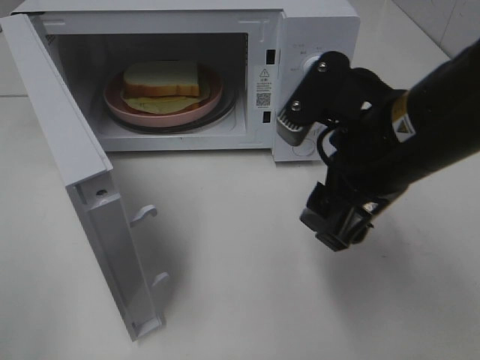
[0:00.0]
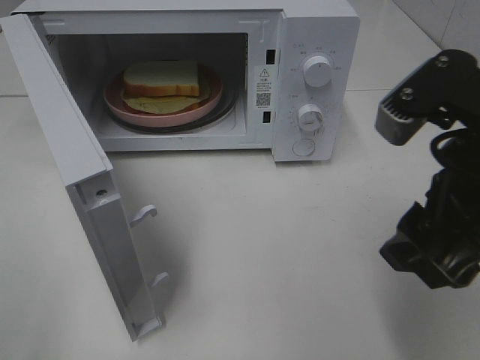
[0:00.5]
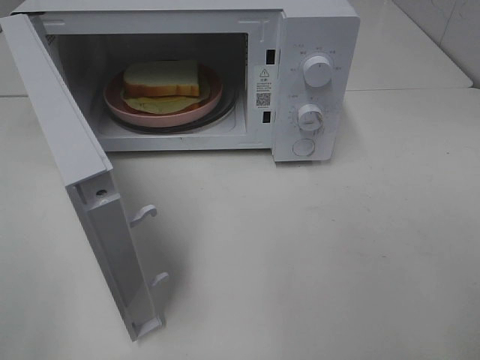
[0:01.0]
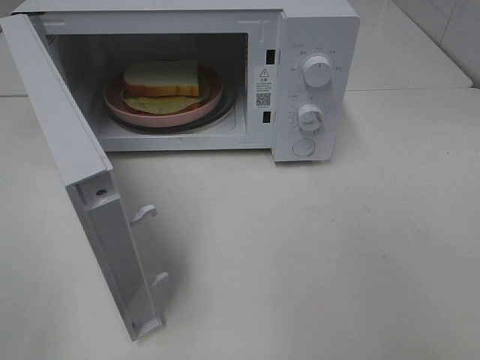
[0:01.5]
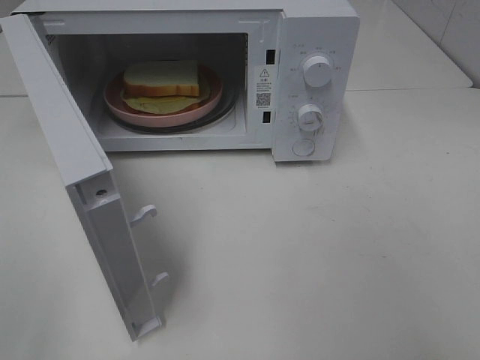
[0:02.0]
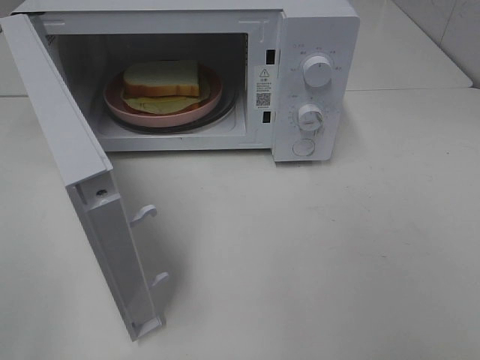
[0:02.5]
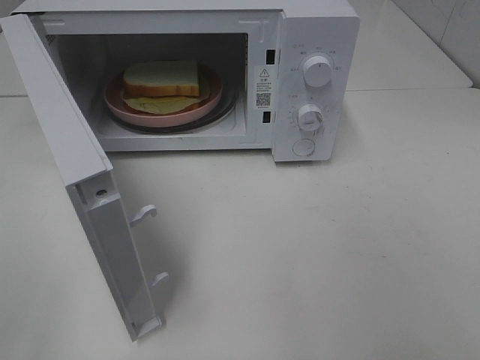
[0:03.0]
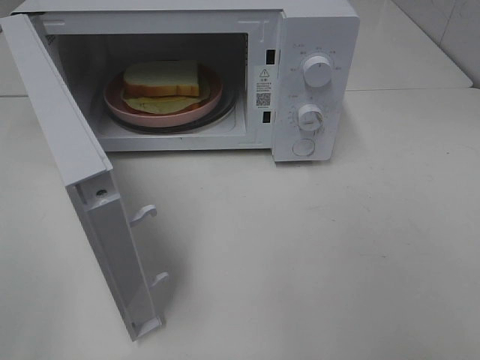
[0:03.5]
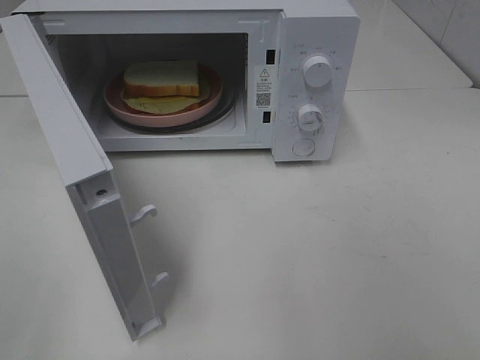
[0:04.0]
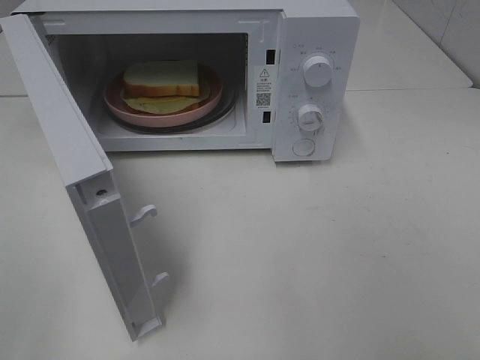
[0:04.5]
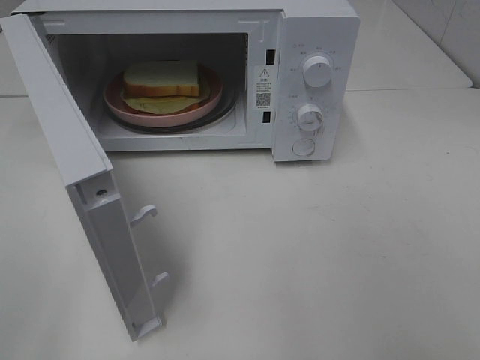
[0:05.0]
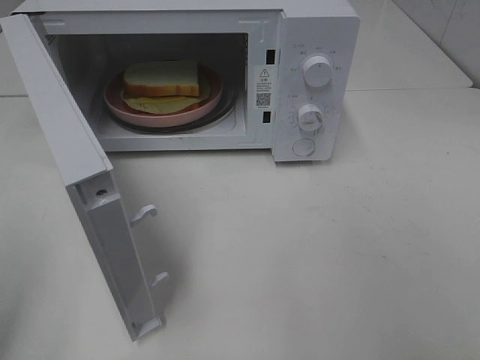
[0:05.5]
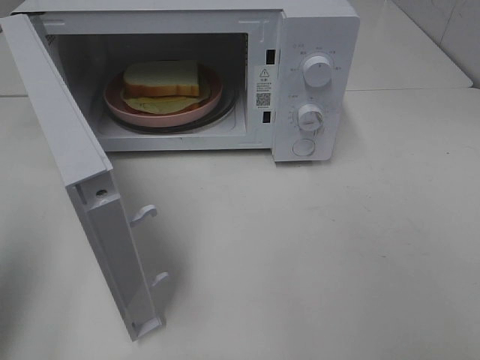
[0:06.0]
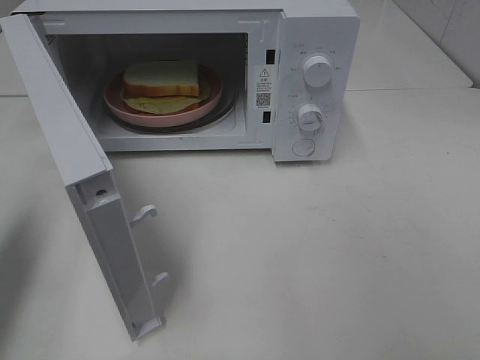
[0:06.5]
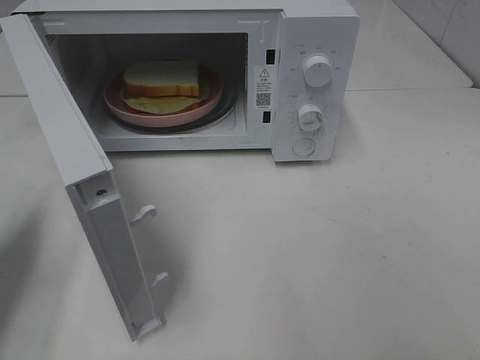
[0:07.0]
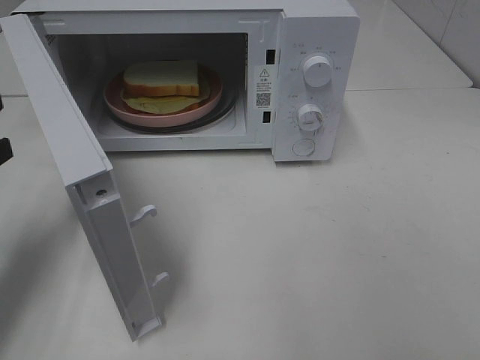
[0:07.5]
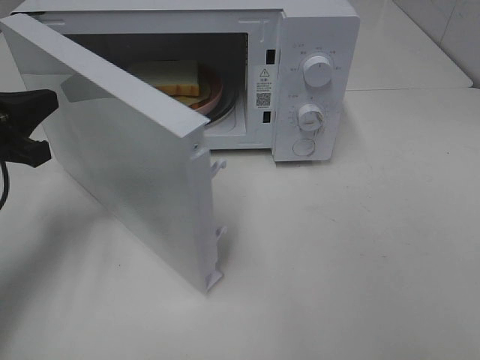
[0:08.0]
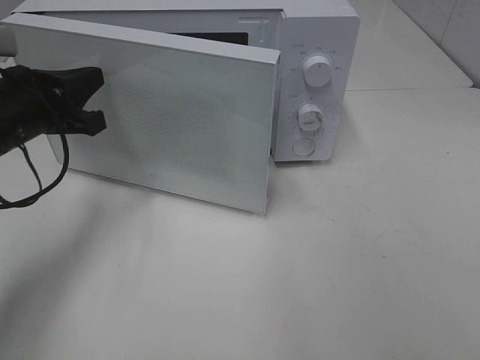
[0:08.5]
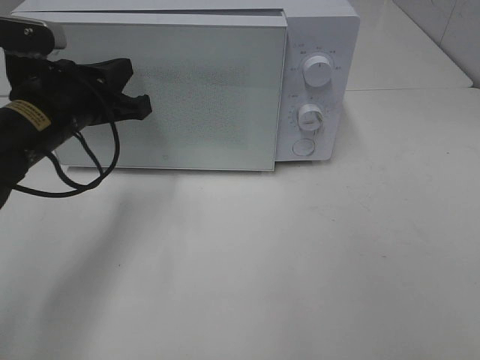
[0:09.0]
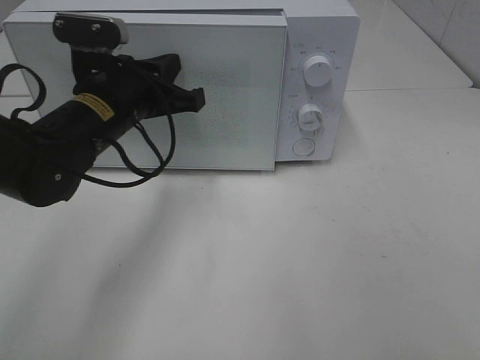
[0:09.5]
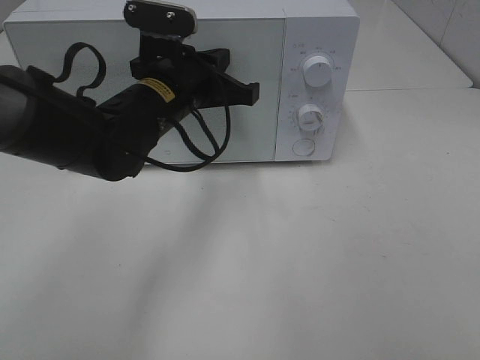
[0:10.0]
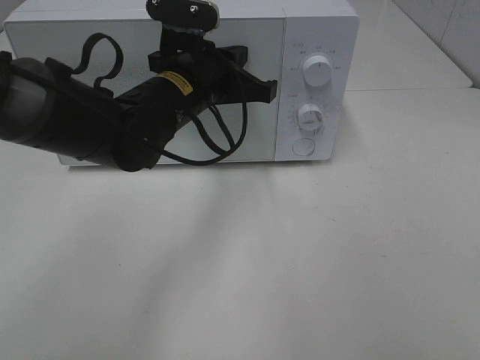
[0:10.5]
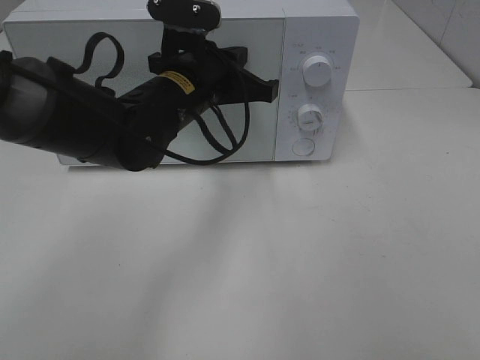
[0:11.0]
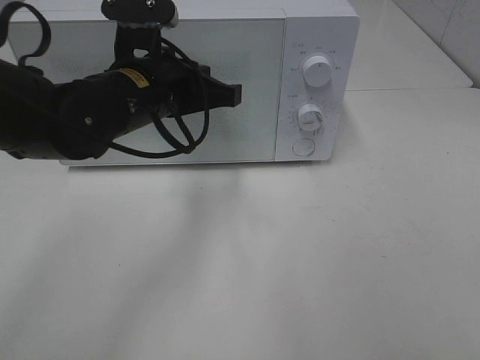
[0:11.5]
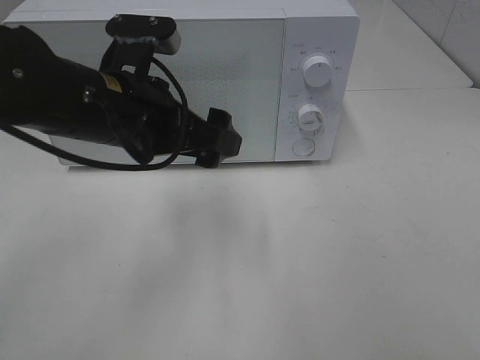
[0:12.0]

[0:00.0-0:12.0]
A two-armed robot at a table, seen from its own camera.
Task of the whole recording: Heat Sandwich.
Step, 0:00.0 to 0:11.5: Left hand: close the microwave door.
0:00.0 to 0:02.0: The right gripper goes roughly 30 cm backward, to the right and upward.
0:04.0 to 0:06.0: The left gripper goes roughly 15 cm forward, and closes.
0:06.0 to 0:08.0: The left gripper goes roughly 20 cm forward and downward.
0:08.0 to 0:10.0: The left gripper moves to the right, approximately 20 cm.
0:10.0 to 0:12.0: The left gripper travels backward by roughly 10 cm, and opens.

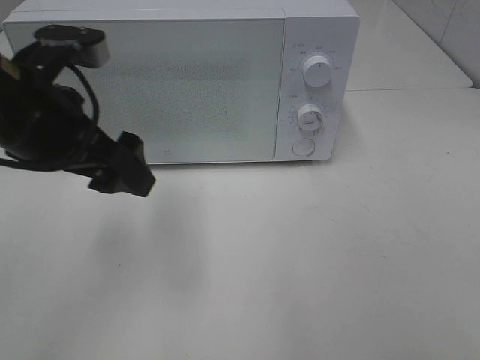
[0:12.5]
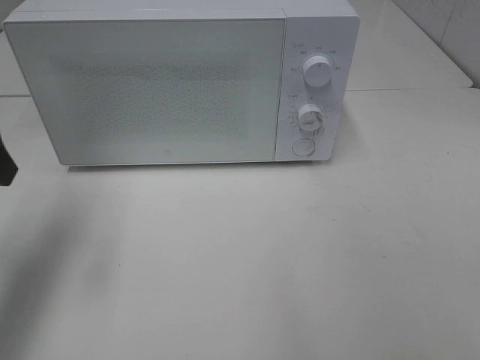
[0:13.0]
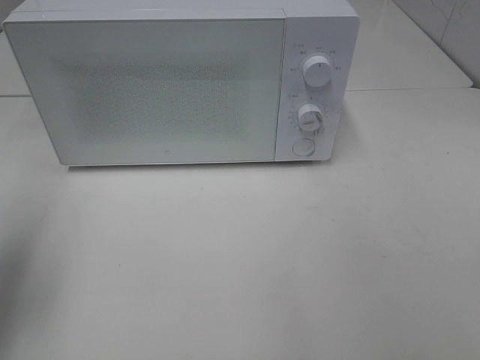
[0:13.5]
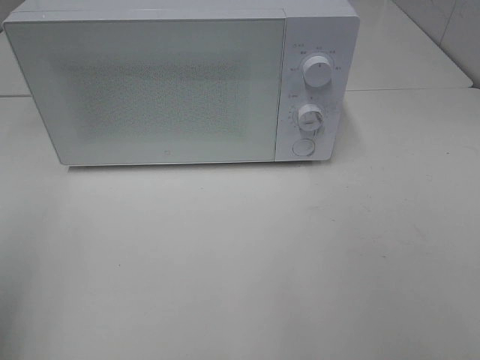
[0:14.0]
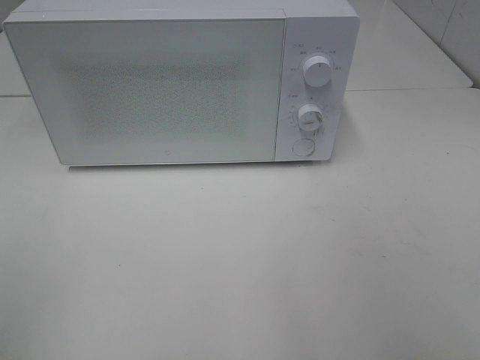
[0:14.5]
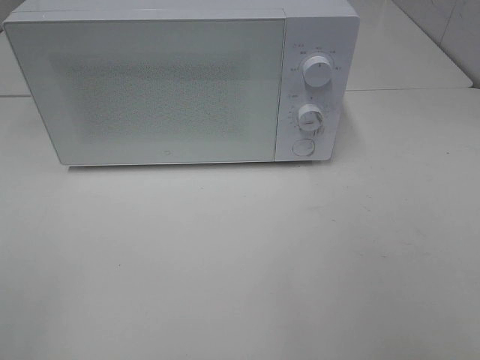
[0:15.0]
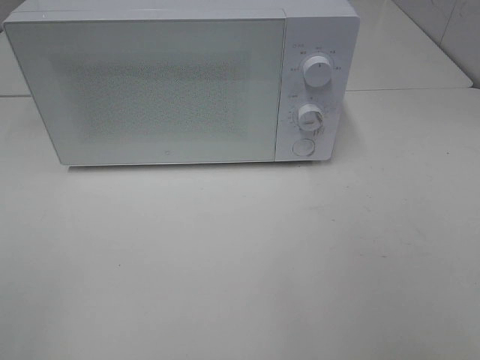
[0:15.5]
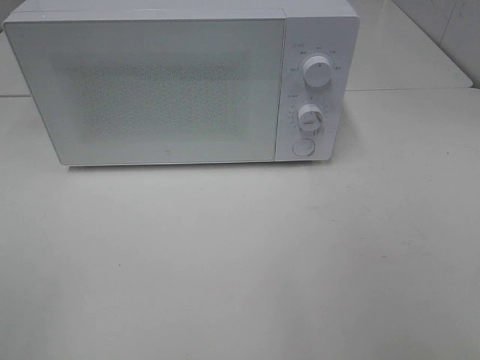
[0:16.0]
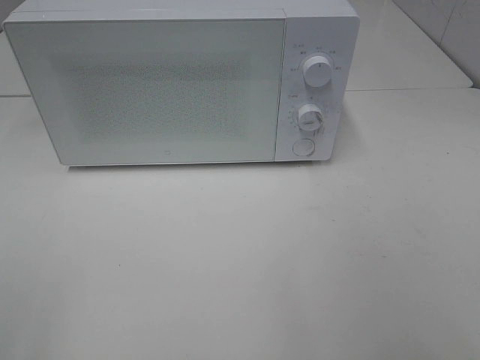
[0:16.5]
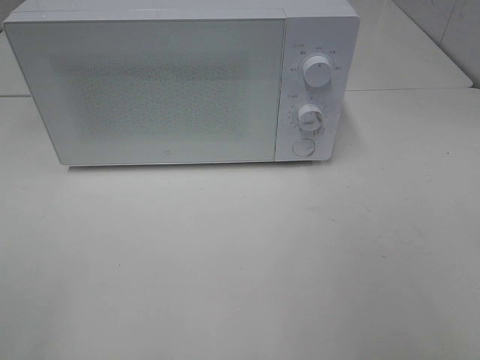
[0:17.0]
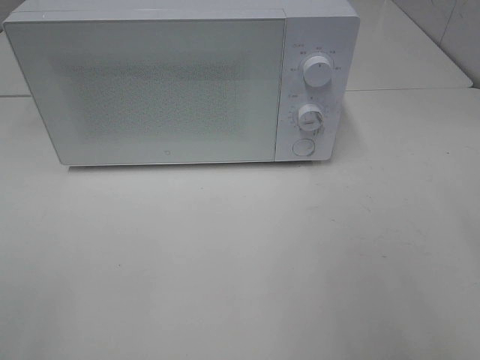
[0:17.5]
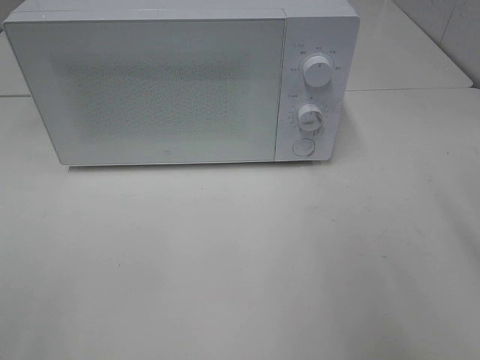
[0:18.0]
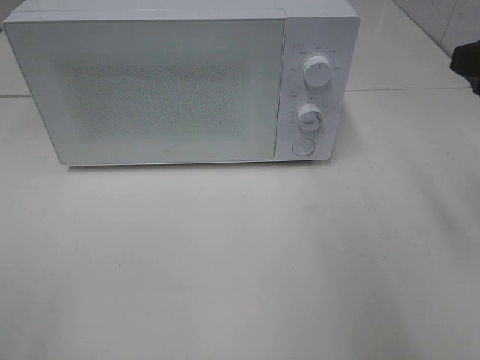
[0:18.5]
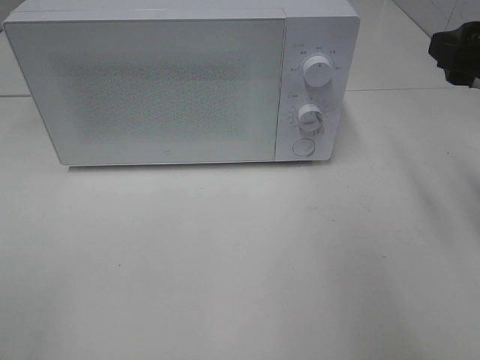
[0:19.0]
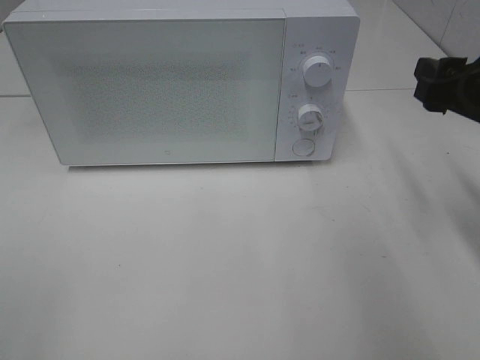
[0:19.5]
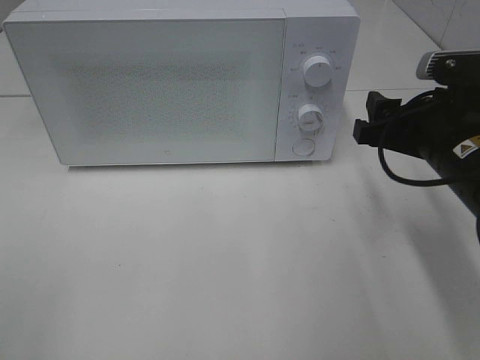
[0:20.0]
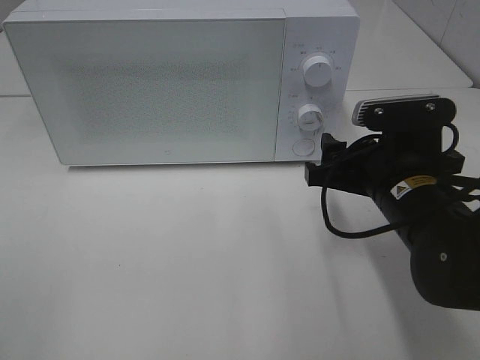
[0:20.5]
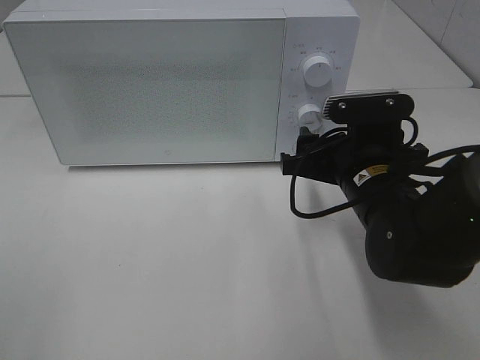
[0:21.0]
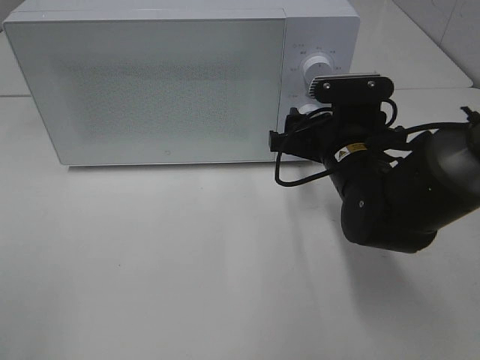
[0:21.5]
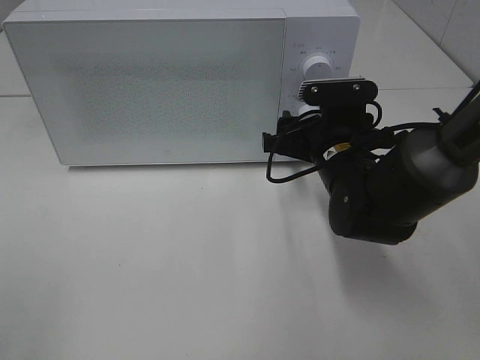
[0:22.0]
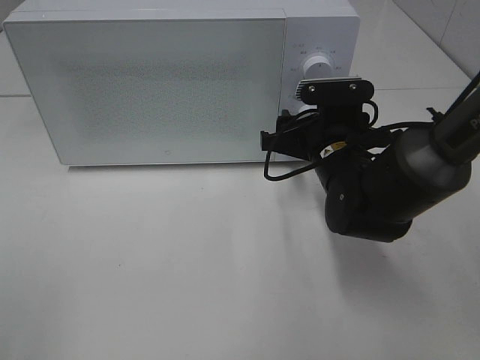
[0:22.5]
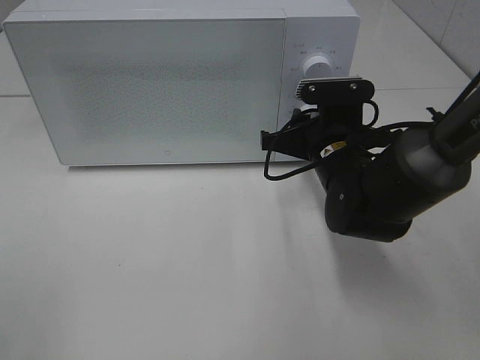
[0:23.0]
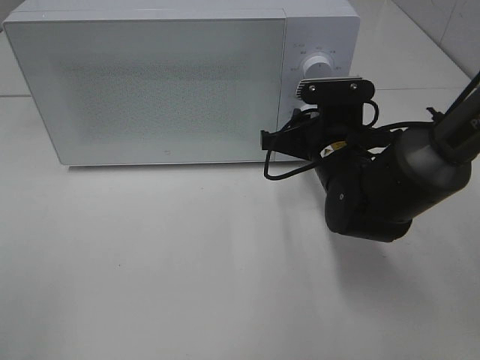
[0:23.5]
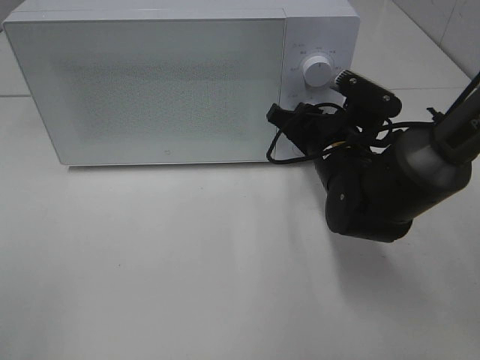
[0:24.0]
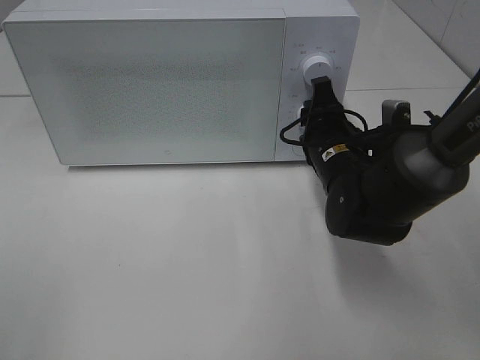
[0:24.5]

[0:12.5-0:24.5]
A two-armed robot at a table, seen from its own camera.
Task of the whole recording: Heat Sandwich.
0:12.5 to 0:14.5: The left gripper heads backward and to the left, covering about 25 cm.
0:16.5 to 0:18.5: The right gripper moves forward, roughly 20 cm.
0:18.5 to 0:20.5: The right gripper moves downward and to the left, some 20 cm.
0:20.5 to 0:22.5: The right gripper heads forward, covering approximately 10 cm.
0:22.5 to 0:24.5: The right gripper closes up.

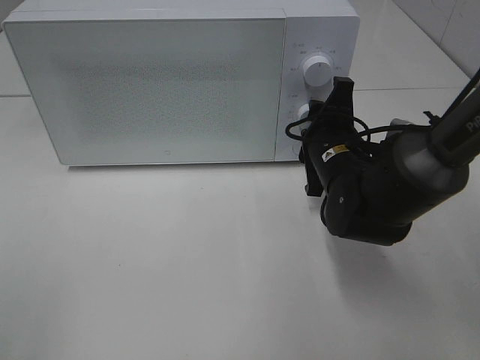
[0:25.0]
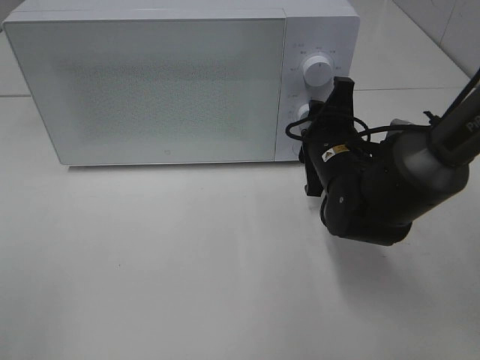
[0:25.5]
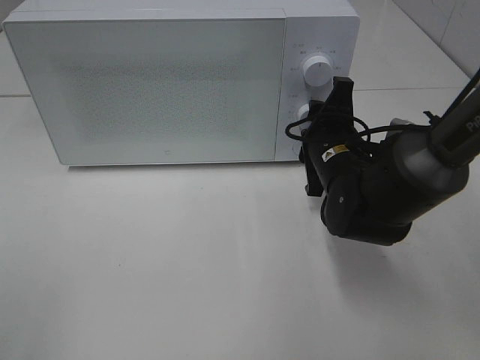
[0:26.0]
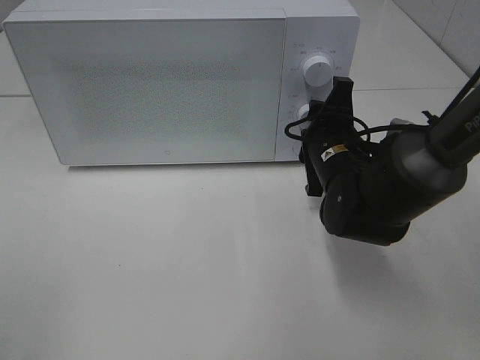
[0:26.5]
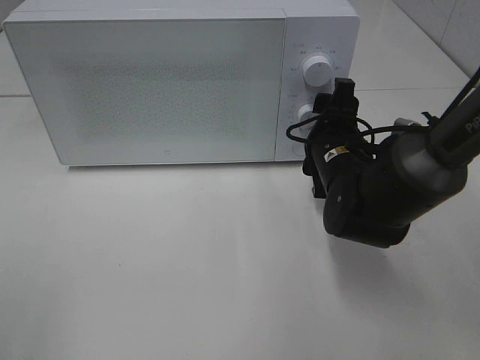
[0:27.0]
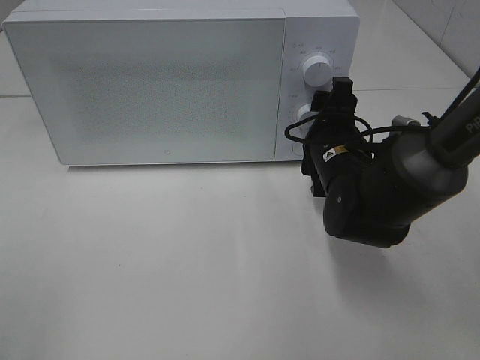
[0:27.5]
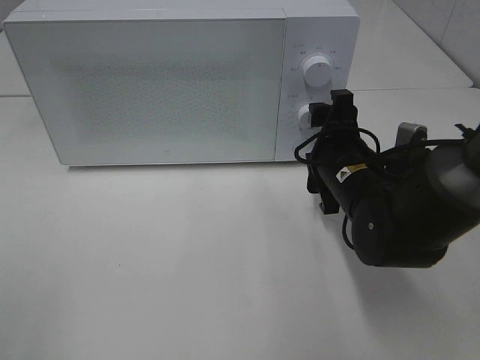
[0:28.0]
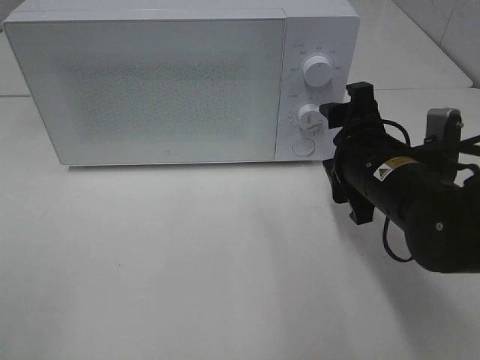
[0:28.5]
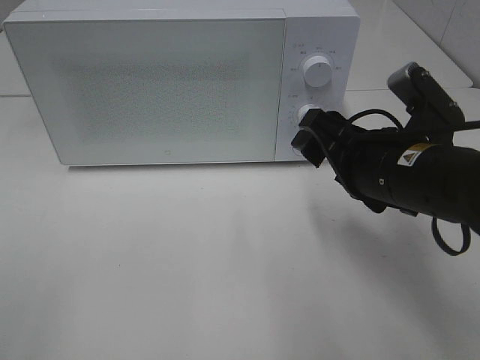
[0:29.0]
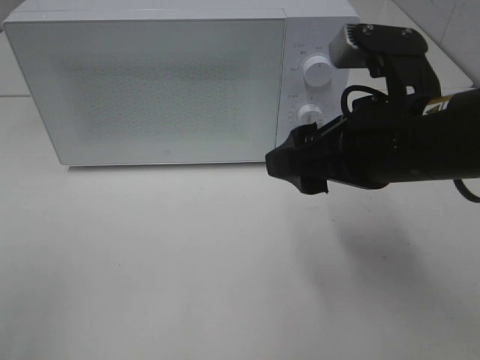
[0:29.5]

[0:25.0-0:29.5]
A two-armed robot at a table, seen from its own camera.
Task of the whole recording: Heat Sandwich.
Step, 0:25.0 to 0:28.0: Right hand: twist timer button.
0:25.0 to 0:27.0: There are only small adjustments of the grippers.
0:27.0 to 0:29.5: The right gripper heads upward and backward, covering roughly 15 cm.
